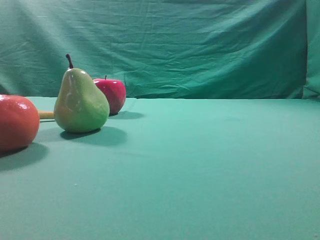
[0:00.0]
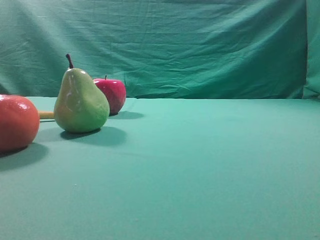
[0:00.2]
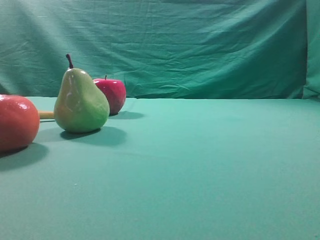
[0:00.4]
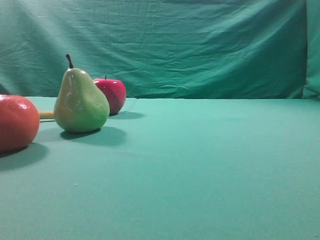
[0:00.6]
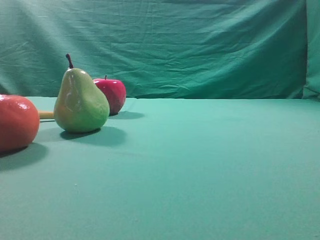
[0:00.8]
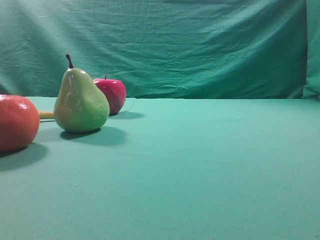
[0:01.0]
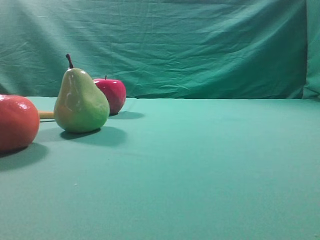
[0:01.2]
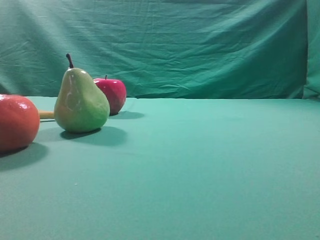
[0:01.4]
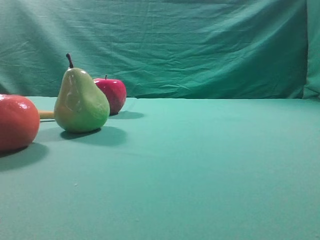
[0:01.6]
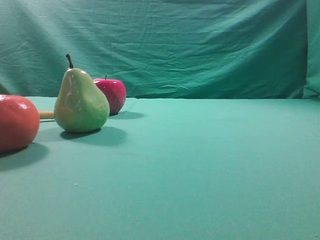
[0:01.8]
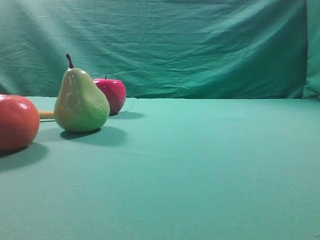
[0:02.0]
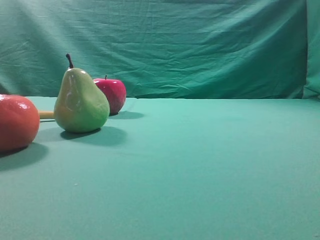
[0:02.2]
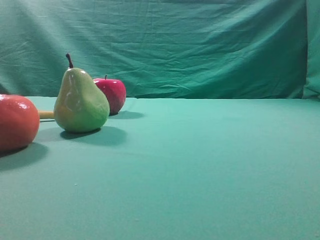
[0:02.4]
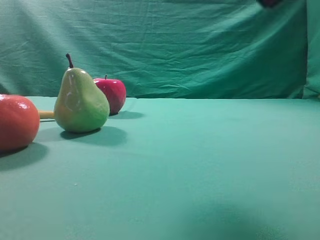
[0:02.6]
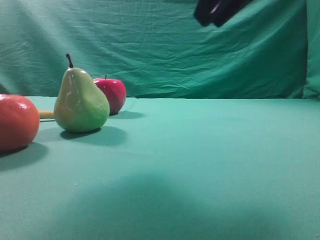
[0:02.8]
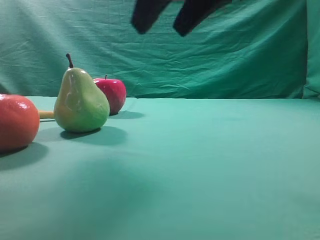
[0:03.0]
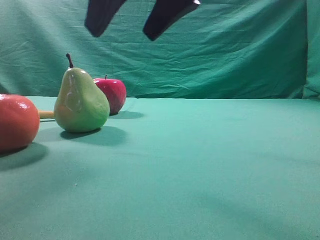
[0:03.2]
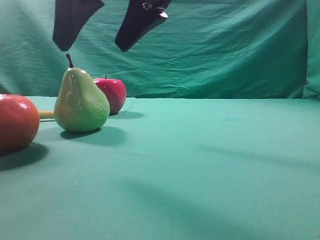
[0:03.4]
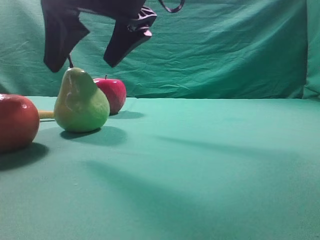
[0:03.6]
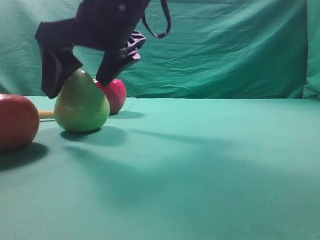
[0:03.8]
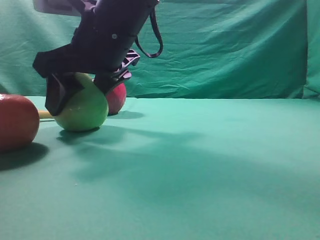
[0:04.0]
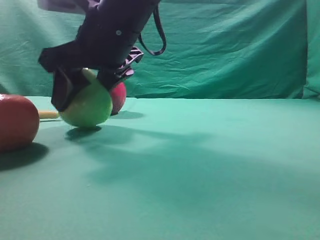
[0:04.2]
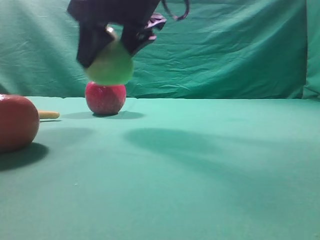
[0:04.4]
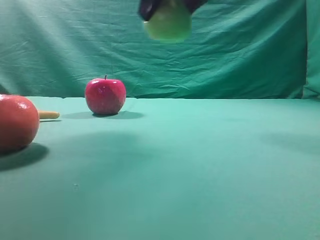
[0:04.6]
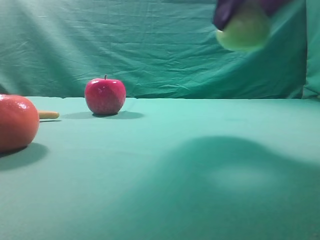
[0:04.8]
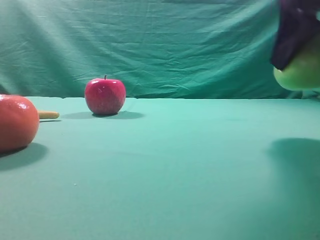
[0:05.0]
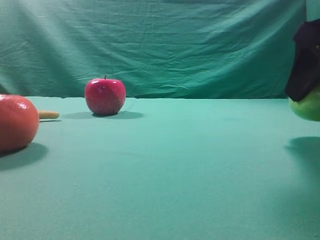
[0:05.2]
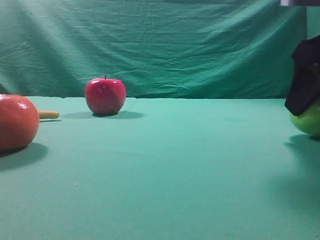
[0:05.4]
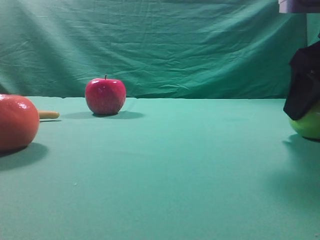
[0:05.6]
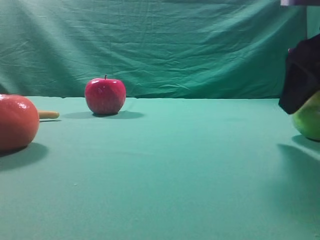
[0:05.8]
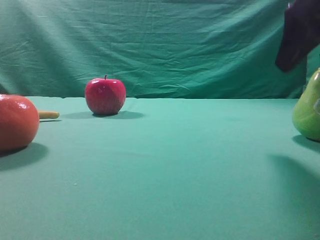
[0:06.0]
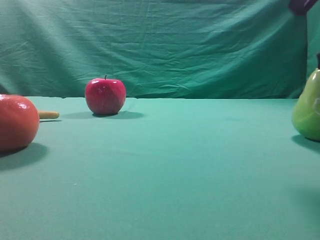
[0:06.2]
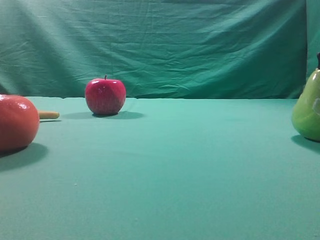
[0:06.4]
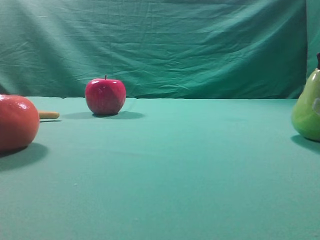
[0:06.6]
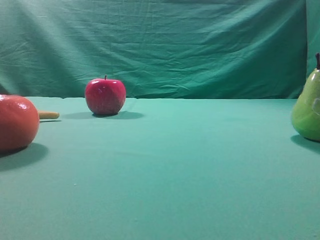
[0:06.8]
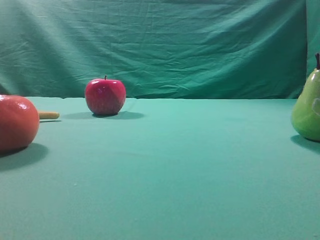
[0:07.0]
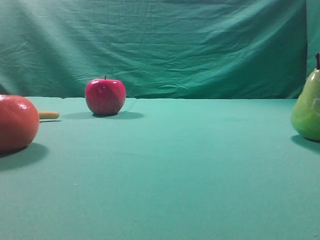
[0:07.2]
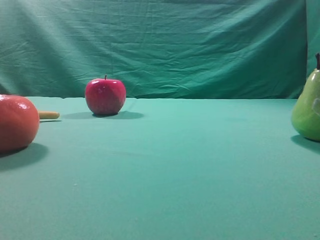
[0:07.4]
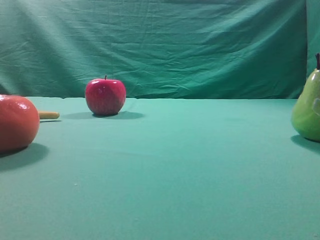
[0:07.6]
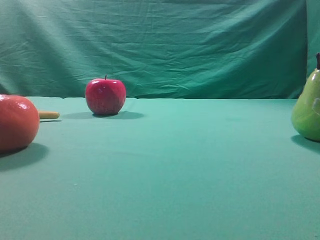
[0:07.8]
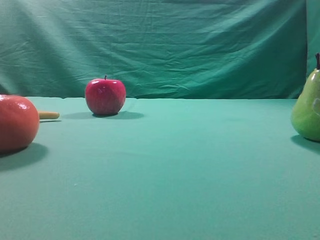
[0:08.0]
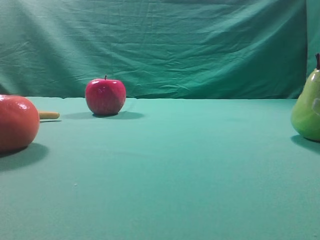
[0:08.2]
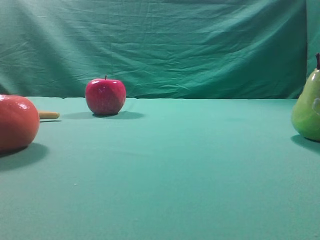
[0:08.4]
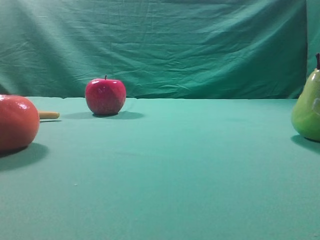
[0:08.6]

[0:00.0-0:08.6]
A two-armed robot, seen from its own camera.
Task of the whole recording: Grasp the pear and place it on one side of the table.
Step, 0:00.0 to 0:03.4: Grasp the high-fiber fruit.
Step, 0:03.6 to 0:05.0: Place it on the right side of the table.
